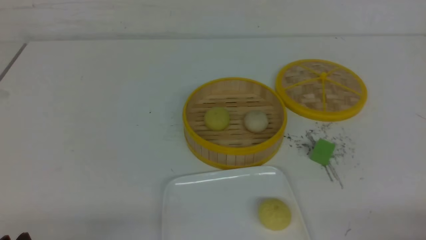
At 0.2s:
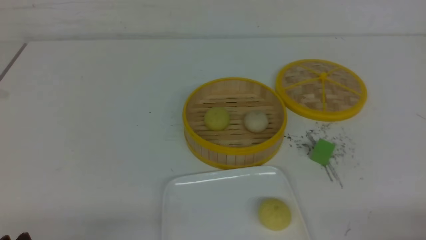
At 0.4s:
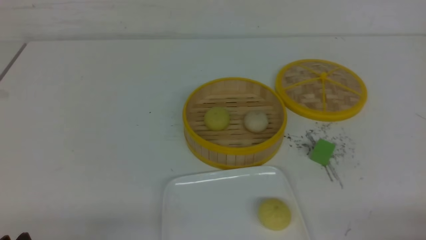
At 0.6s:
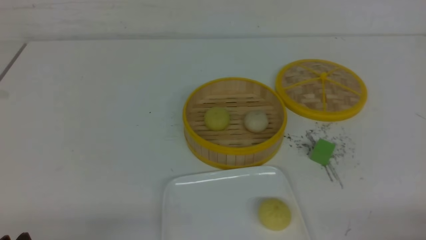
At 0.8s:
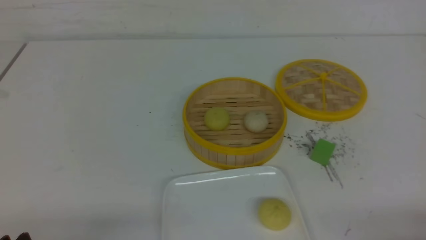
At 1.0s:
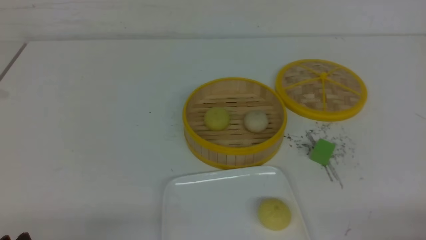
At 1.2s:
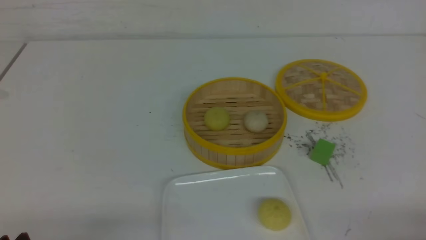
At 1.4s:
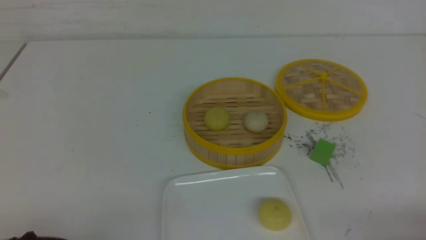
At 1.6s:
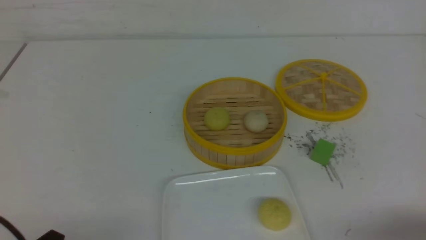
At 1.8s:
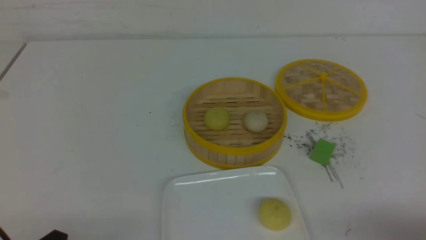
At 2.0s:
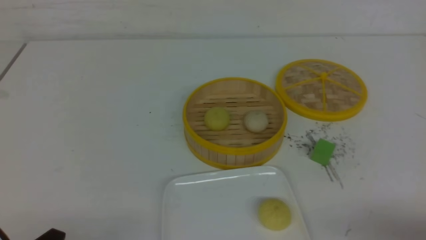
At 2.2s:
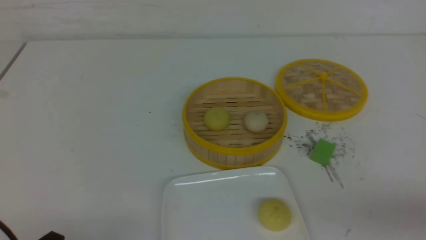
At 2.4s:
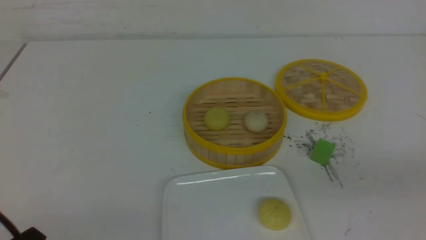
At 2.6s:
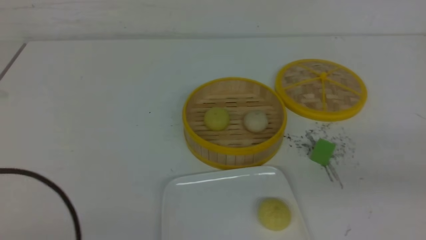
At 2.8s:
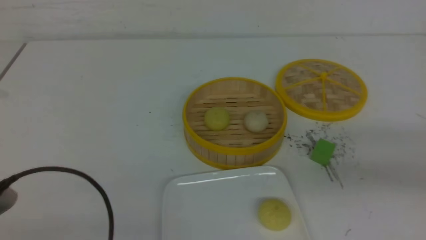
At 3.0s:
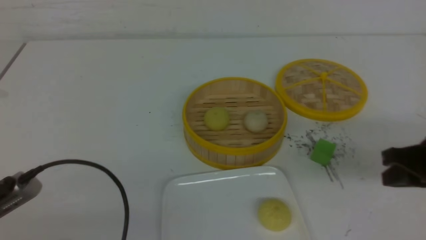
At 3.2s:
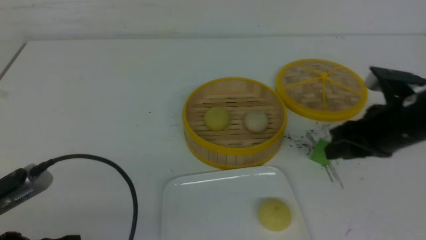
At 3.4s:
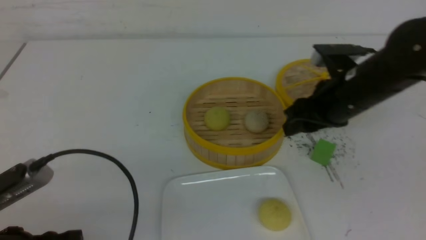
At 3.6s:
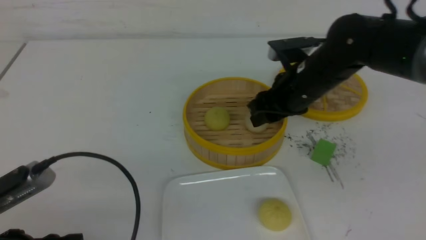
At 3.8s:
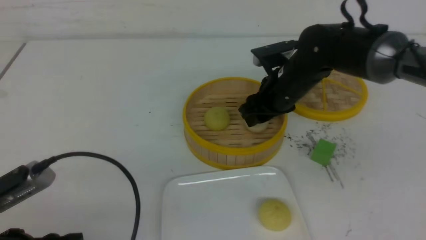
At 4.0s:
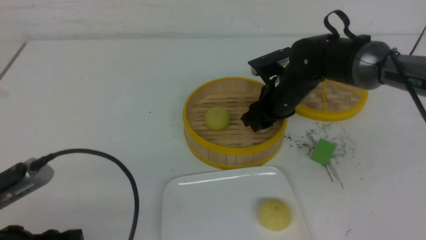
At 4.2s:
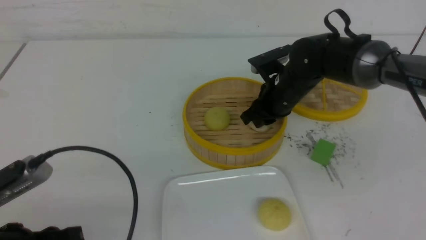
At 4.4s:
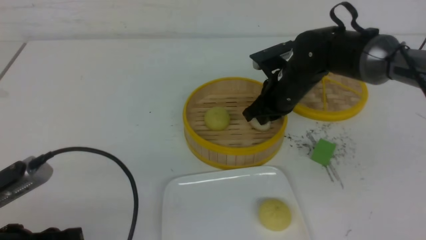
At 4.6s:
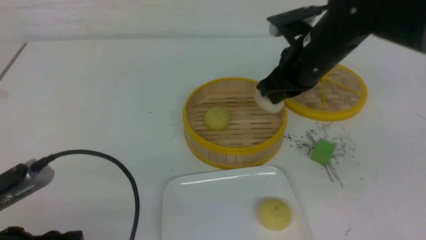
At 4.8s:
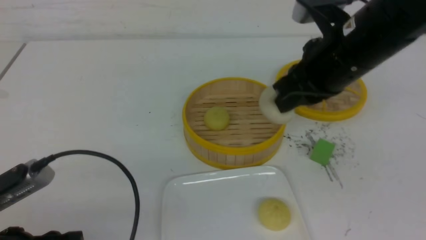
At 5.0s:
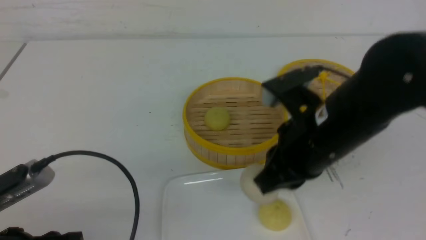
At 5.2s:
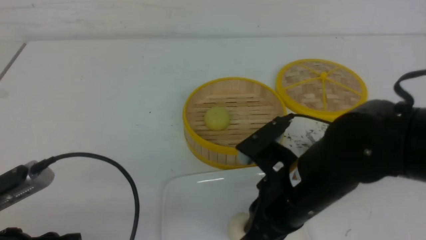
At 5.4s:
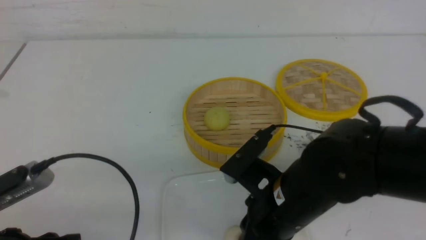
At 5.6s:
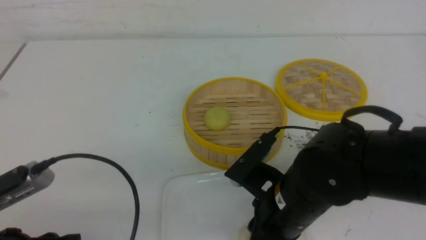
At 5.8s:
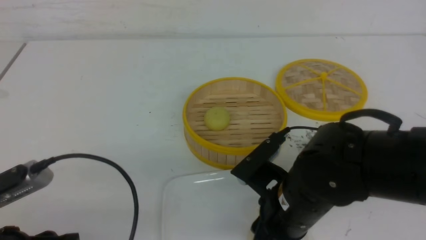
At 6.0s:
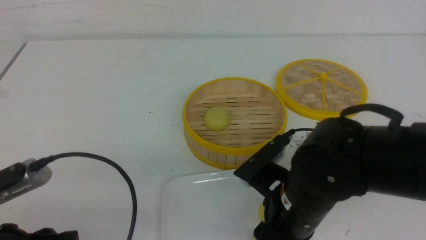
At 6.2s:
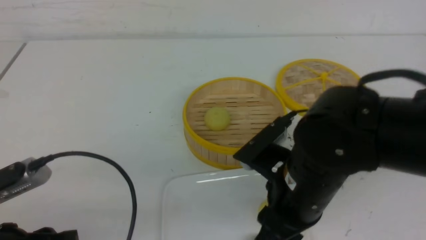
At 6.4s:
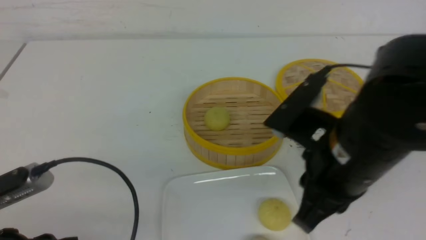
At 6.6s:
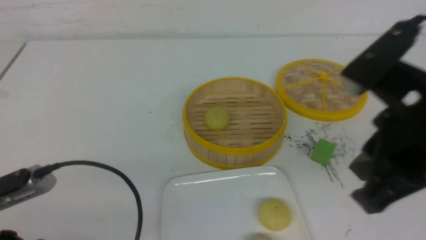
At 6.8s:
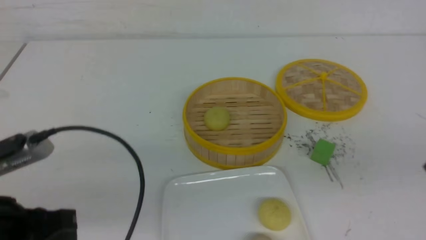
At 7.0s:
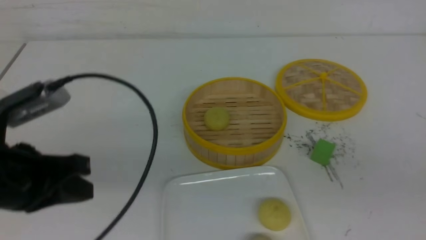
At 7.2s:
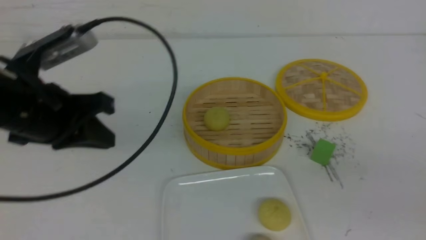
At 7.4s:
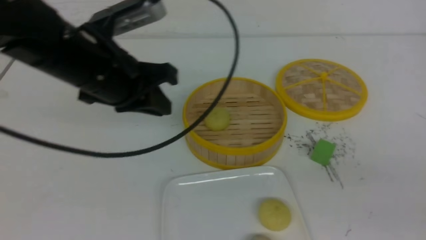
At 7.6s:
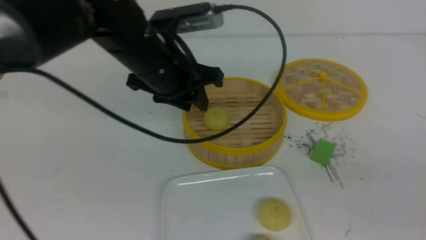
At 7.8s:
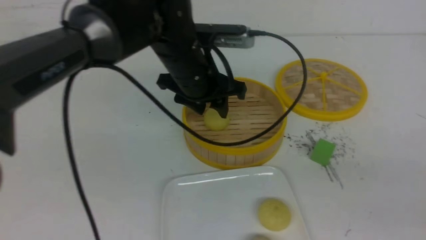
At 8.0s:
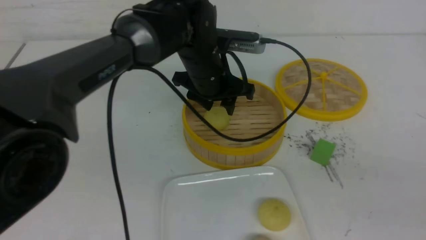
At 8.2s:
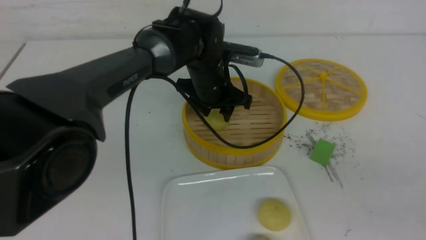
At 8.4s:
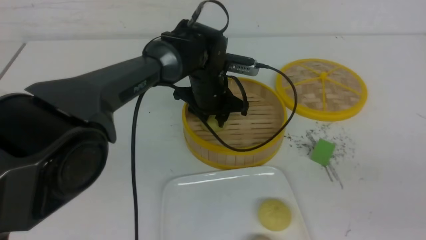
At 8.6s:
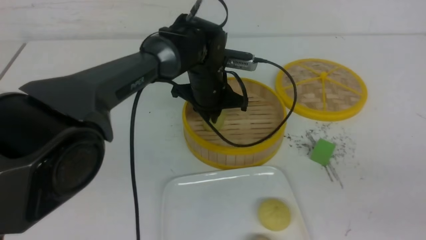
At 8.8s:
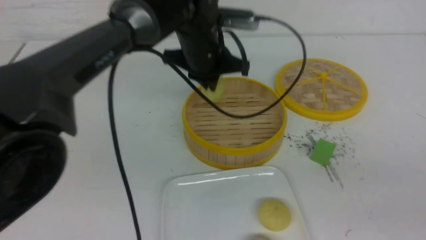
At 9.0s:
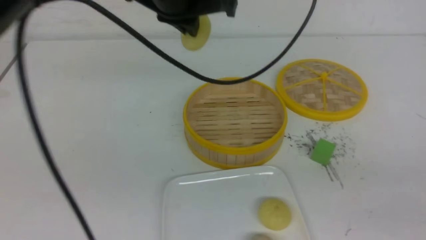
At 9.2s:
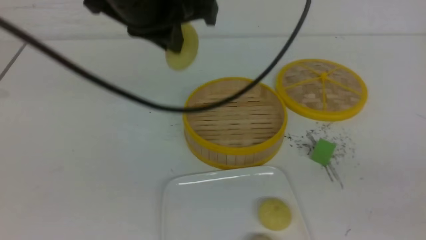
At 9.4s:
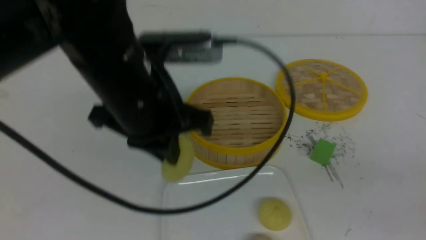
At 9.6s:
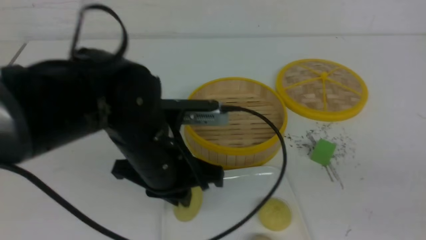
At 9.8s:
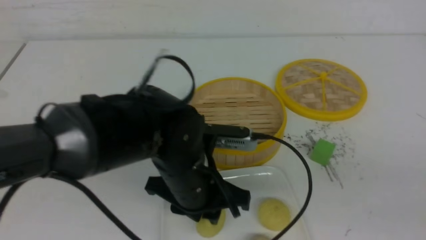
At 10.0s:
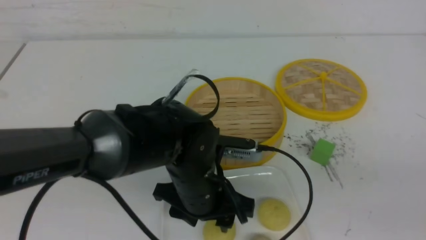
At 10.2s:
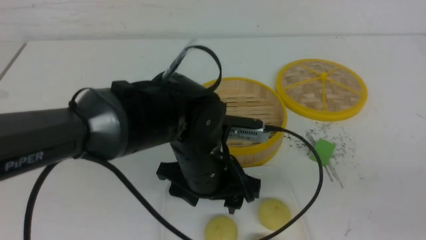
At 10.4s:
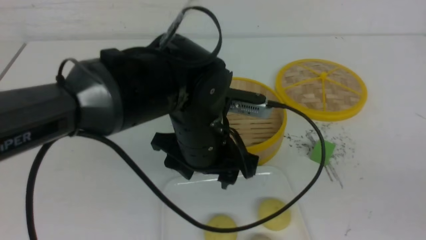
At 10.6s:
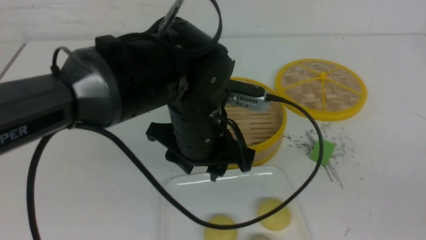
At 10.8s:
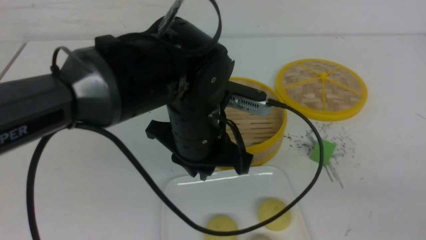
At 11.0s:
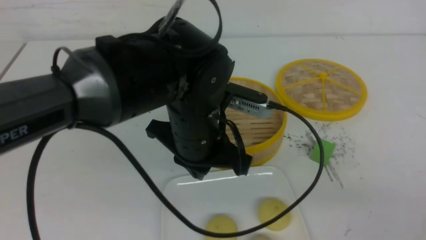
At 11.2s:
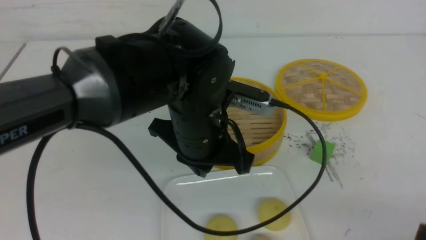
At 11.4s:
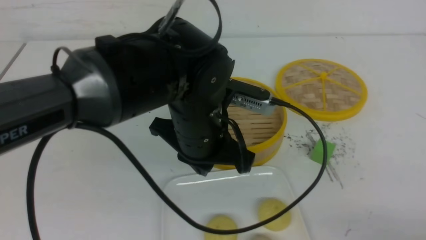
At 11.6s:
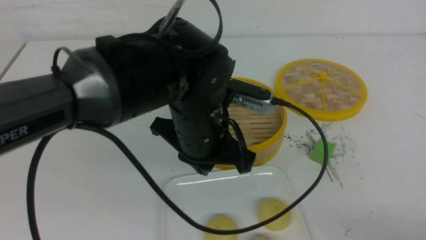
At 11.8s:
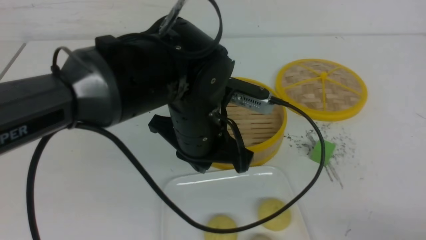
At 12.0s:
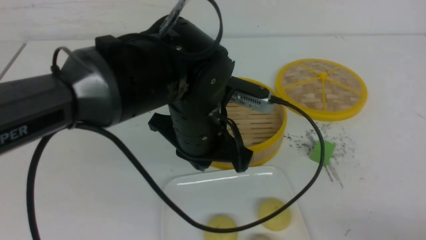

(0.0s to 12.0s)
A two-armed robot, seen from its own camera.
Step, 0.0s - 4.2s: use the right arm to grab the steamed stuffed bun that is closest to it.
Step, 4.4s - 6.0s: use the right arm to put the steamed stuffed bun into the plate.
Step, 6.2s - 8.4s: use the left arm to grab the steamed stuffed bun that is closest to it.
Step, 8.8s - 10.0s: use the left arm to put the steamed stuffed bun into the plate.
1.6s - 3.0s: The right gripper is displaced forward and upward by some 15 cm, and closes up, while the left gripper is displaced upward by approximately 5 cm, and closes.
3.0s - 4.4s: The left gripper opens its fingers. The right gripper shifts roughly 25 cm forward and to the left, and opens, then closes again.
4.4s - 6.0s: The right gripper heads backward, covering some 20 cm, and opens up.
6.0s - 7.6s: The right gripper goes some 30 cm to the right, backward and upward, and closes up. Meanwhile the left gripper travels forward, to the right and upward by roughly 25 cm, and closes, then reopens.
7.6s - 9.0s: The left gripper shifts some 5 cm to the right, travels downward and back again, roughly 10 cm each way, and closes up.
9.0s - 10.4s: The left gripper heads downward and backward, covering about 15 cm, and opens its fingers.
10.4s - 12.0s: The left gripper closes, while the right gripper shifts some 10 cm downward and to the left.

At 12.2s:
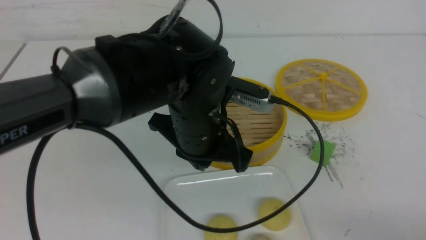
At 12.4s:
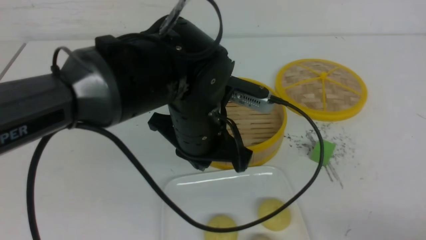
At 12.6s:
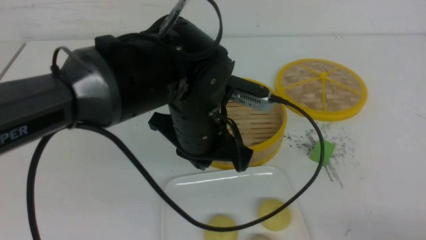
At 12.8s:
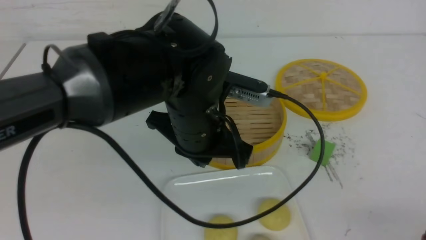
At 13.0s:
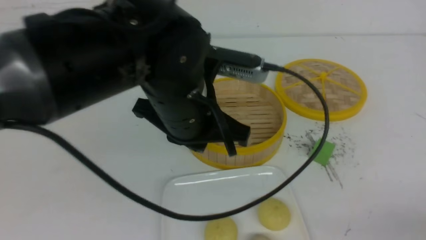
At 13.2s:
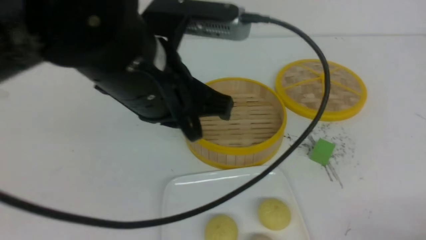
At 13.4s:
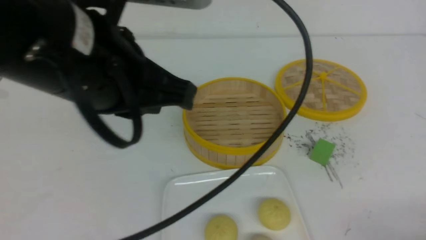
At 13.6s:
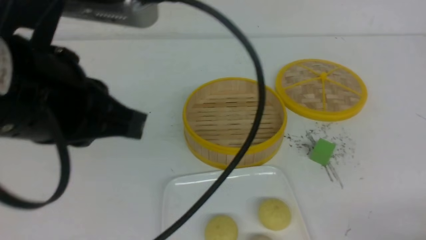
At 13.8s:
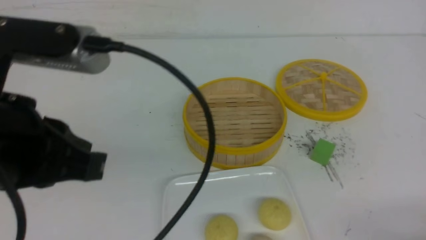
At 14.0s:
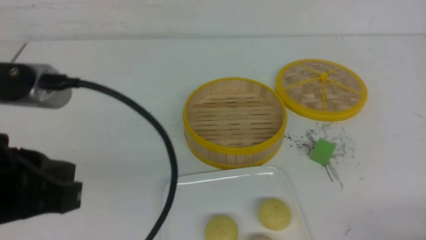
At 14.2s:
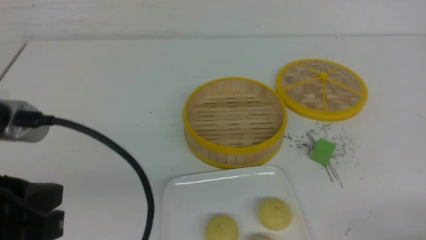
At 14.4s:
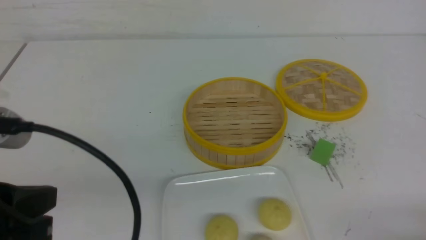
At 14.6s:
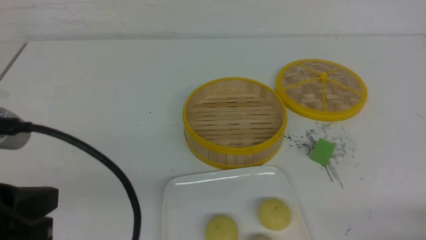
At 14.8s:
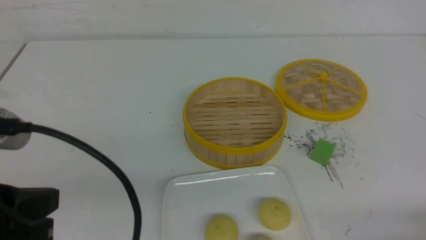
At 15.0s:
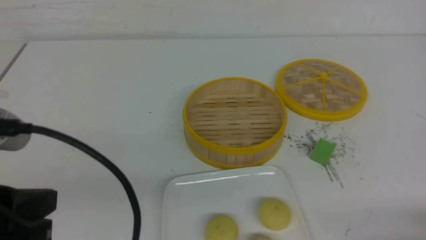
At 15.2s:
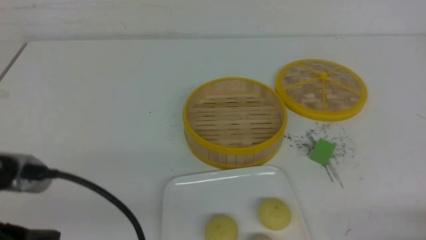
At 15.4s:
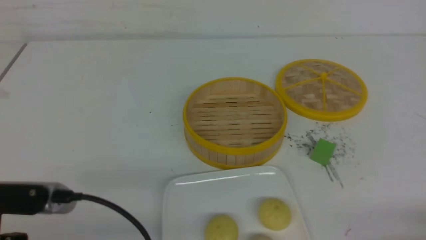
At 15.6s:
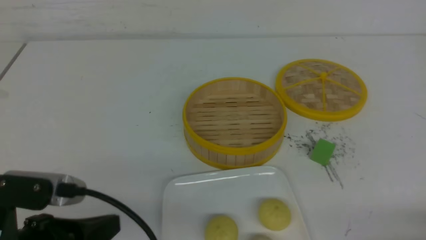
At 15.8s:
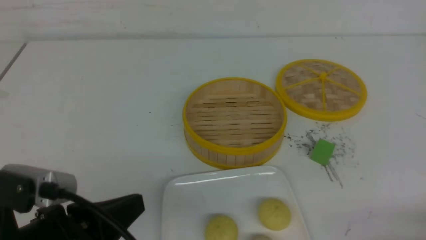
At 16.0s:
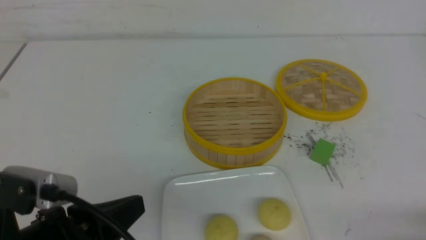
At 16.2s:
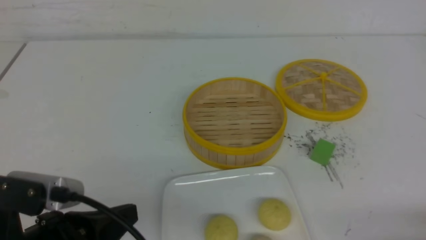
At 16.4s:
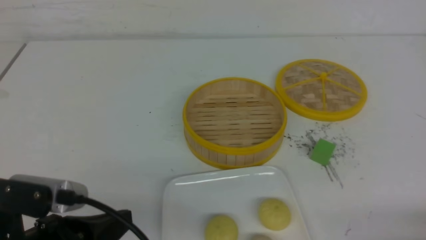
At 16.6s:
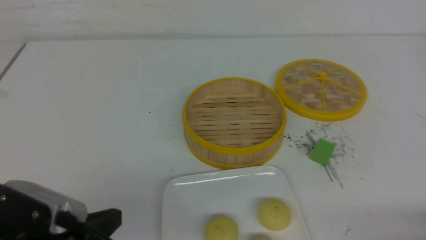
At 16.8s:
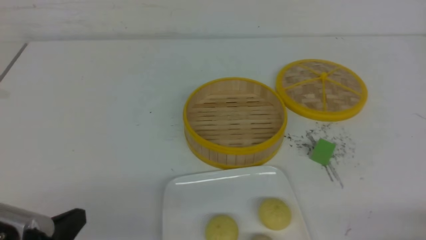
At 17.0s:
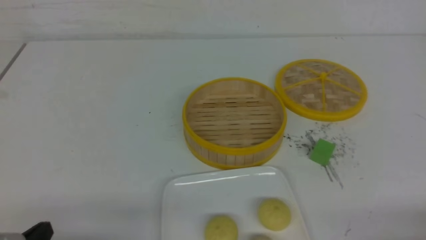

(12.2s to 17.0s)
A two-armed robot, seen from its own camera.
12.2s - 13.8s: The right gripper moves downward, roughly 10 cm. The left gripper is displaced to the left, backward and upward by some 20 cm.
13.8s - 15.4s: The left gripper is displaced downward and backward by about 10 cm.
15.4s - 17.0s: The left gripper heads downward, covering some 10 cm.
